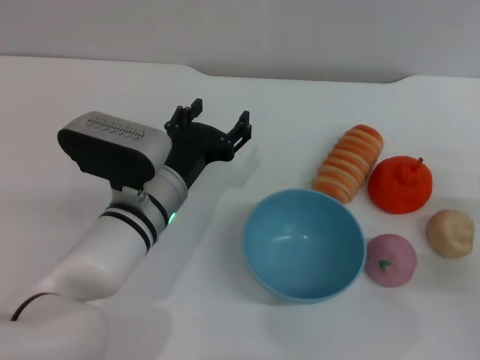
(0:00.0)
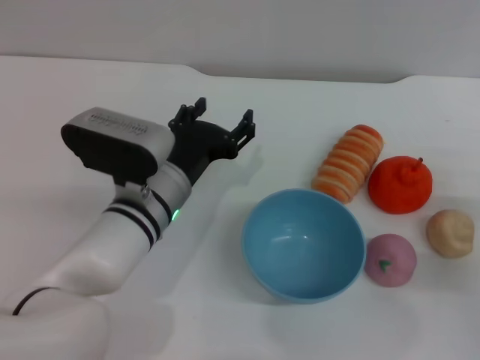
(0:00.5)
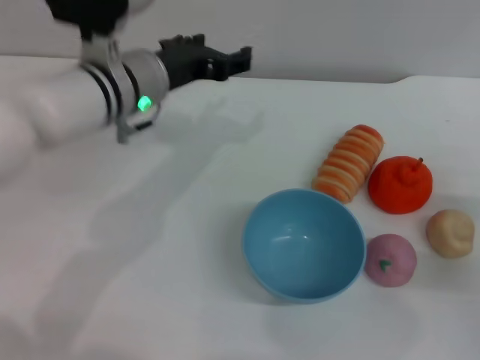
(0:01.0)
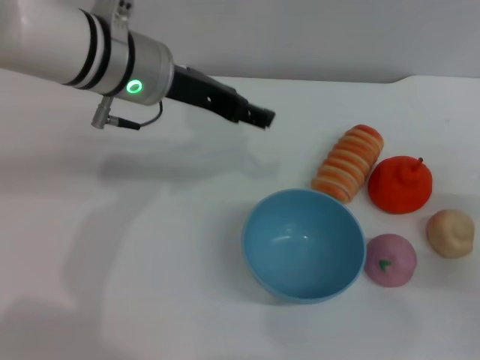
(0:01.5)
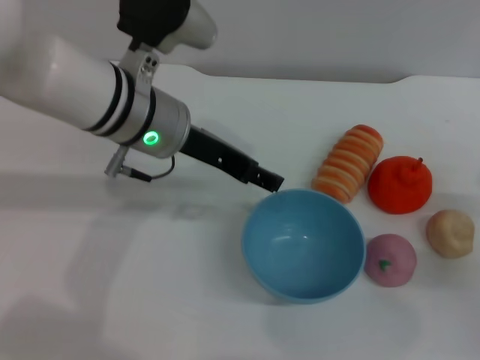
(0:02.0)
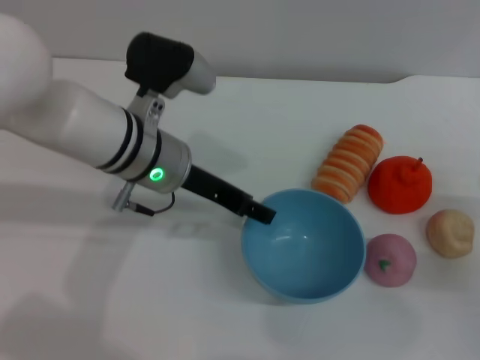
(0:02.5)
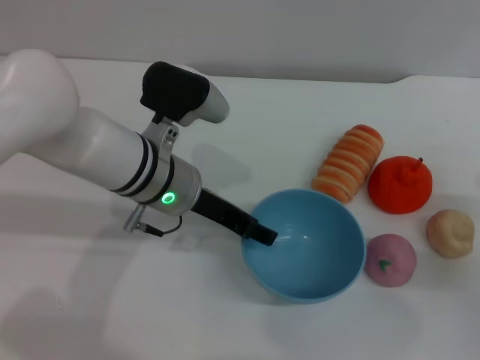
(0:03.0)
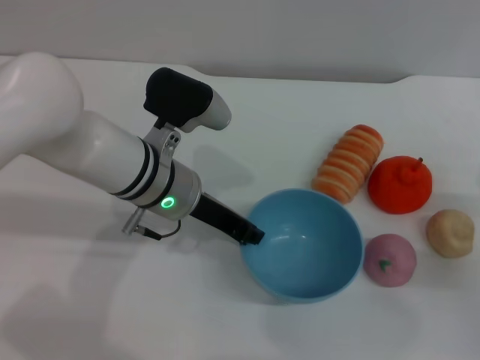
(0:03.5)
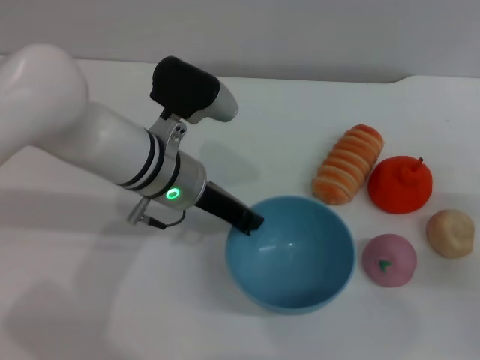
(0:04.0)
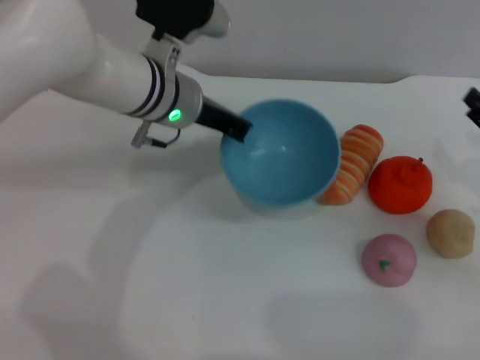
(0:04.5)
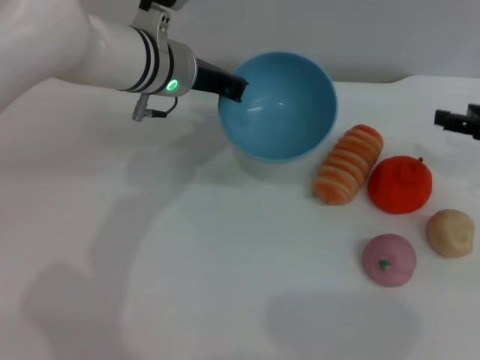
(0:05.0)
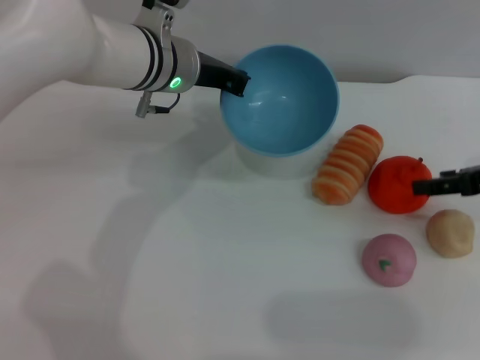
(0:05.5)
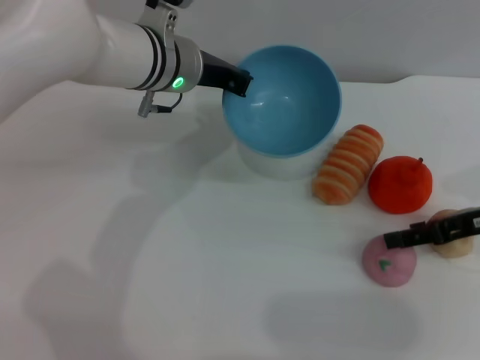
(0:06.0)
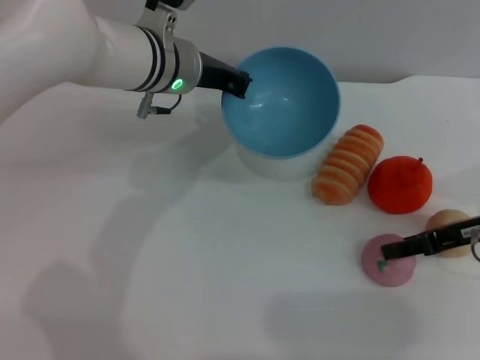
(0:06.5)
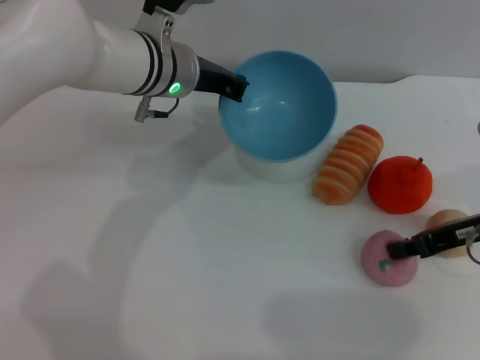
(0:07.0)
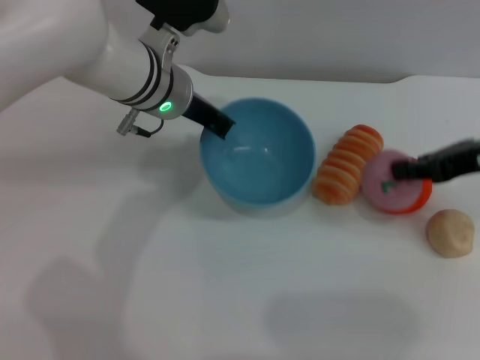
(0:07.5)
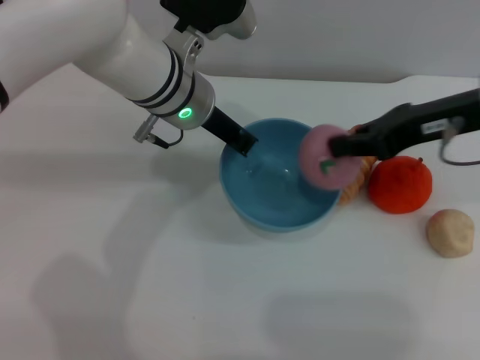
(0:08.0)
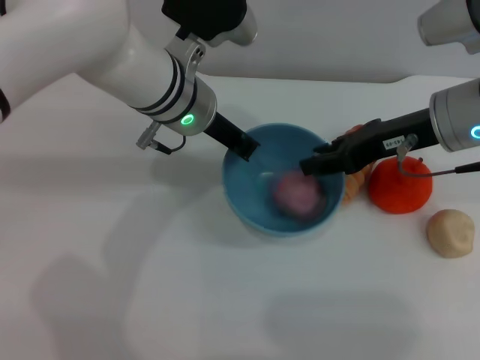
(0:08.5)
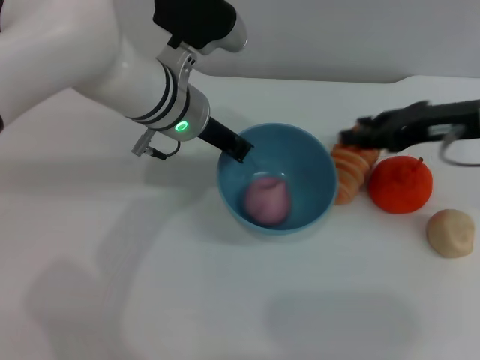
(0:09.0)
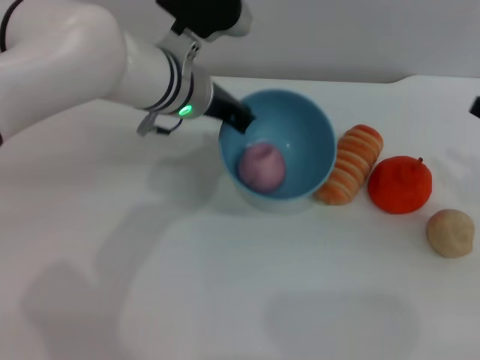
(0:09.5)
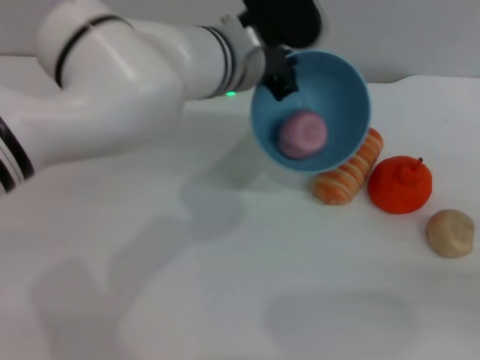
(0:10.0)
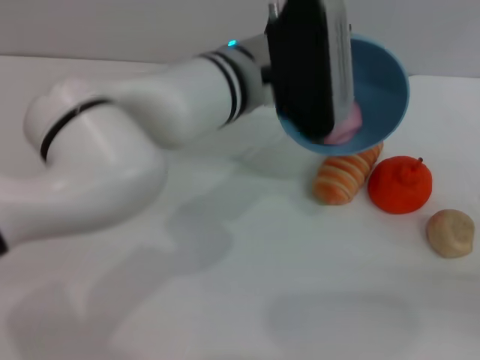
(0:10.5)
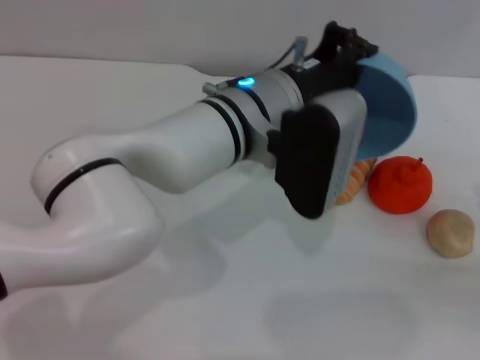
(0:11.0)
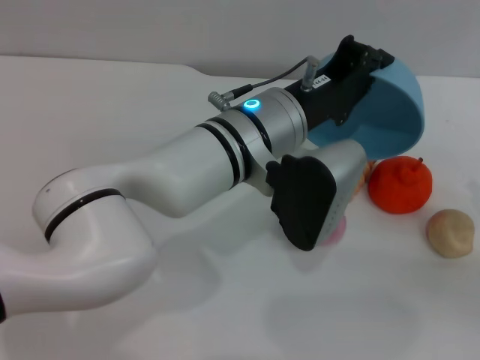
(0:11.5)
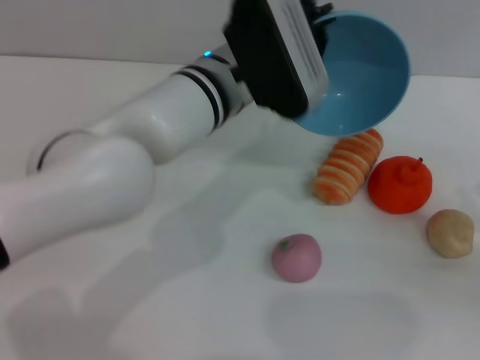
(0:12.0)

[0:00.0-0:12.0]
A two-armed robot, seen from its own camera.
Task of the whole recording: put the peach into the blue bowl and pour it out repeatedly.
Step, 0:00.0 to 0:04.5: Pick up the bowl with the left gripper.
Step, 0:05.0 to 0:07.5: Pick up the peach with the right gripper.
Step, 0:08.0 to 0:09.0: Place the peach into the bowl.
0:00.0 to 0:02.0: The left gripper shifts roughly 15 cm upward and forward.
0:02.0 to 0:04.0: The left gripper travels downward by approximately 5 cm, and closes.
0:04.0 to 0:06.0: The left gripper shifts about 10 cm forward. The right gripper shifts some 10 cm upward and forward.
0:06.0 to 0:08.0: The right gripper moves upward and to the left, roughly 10 cm, and closes.
0:08.0 to 0:10.0: The right gripper moves to the right, downward and backward, some 25 cm, and opens up.

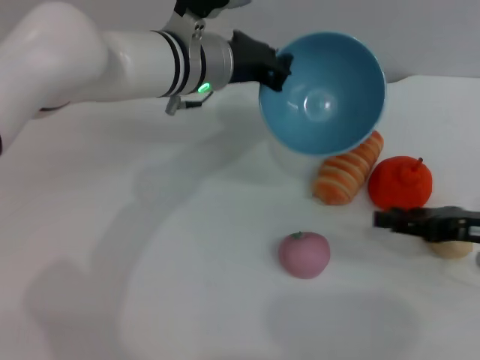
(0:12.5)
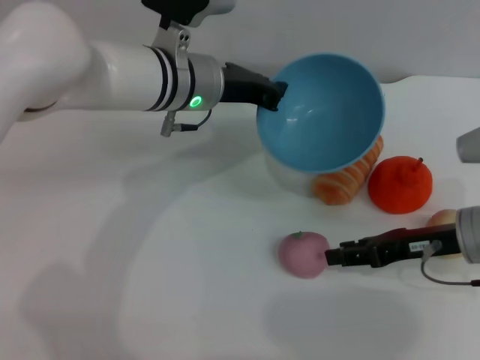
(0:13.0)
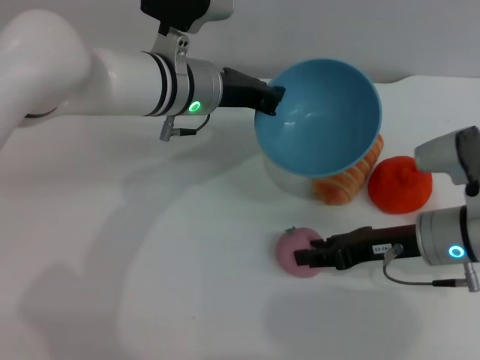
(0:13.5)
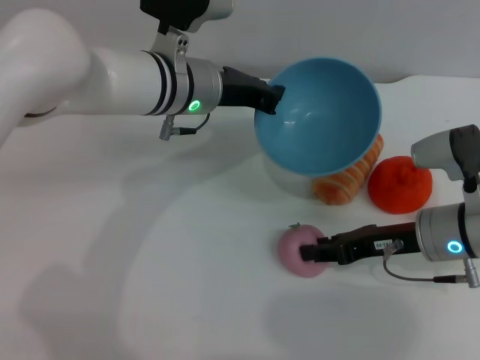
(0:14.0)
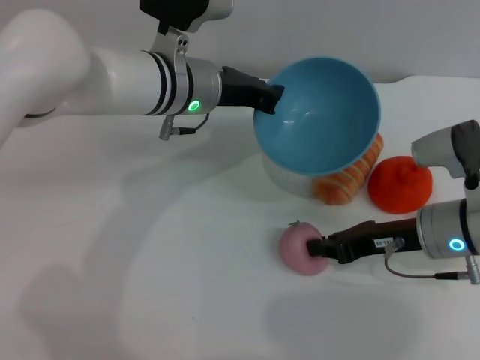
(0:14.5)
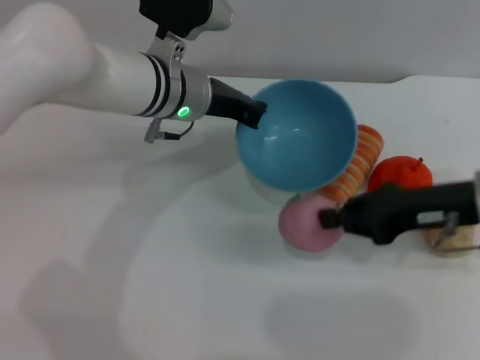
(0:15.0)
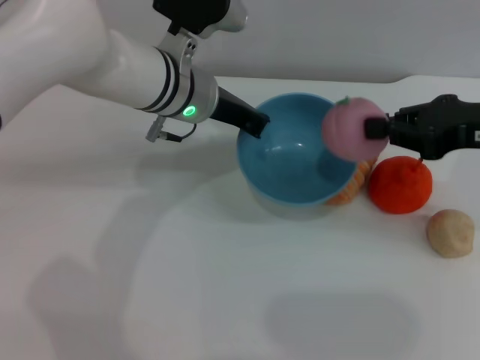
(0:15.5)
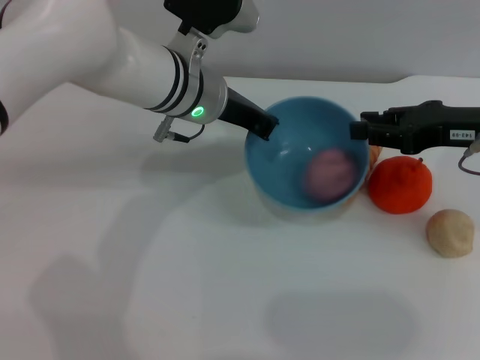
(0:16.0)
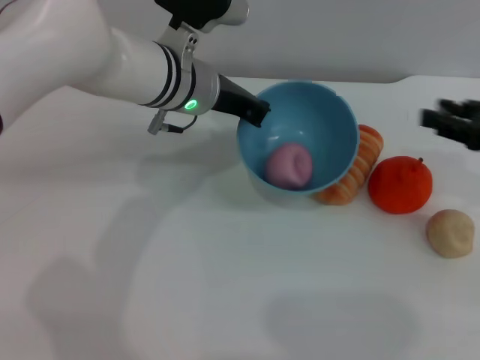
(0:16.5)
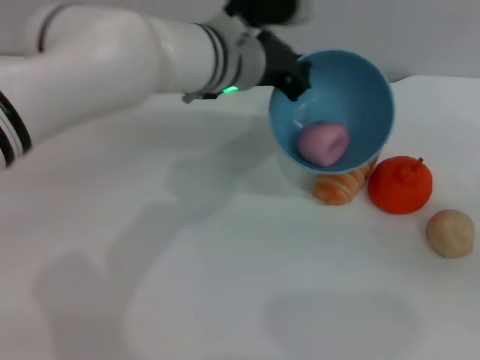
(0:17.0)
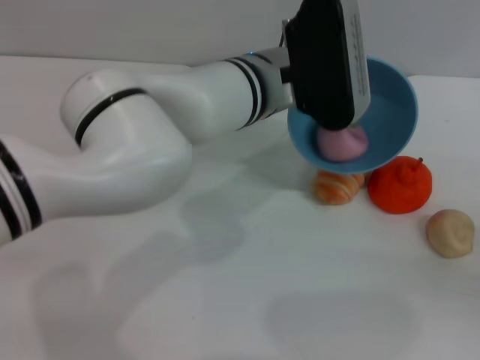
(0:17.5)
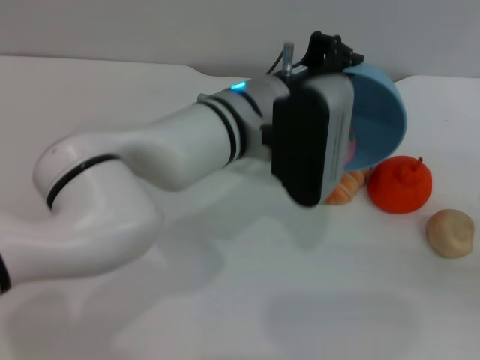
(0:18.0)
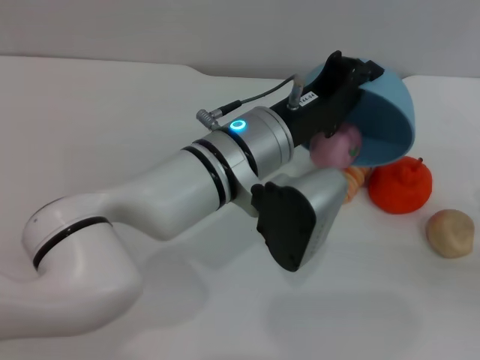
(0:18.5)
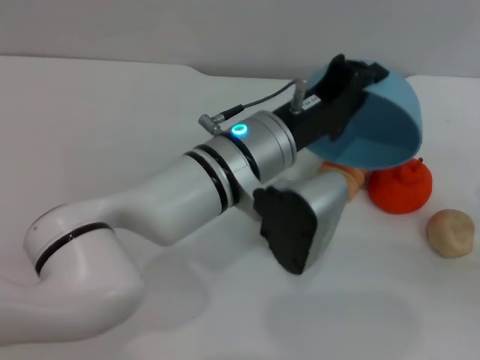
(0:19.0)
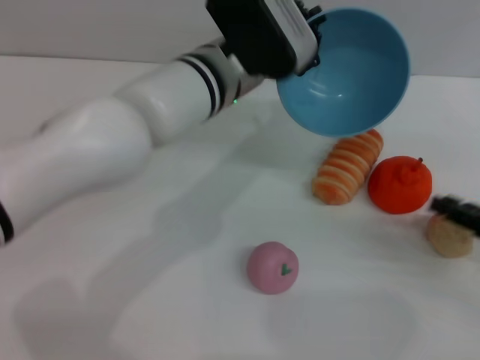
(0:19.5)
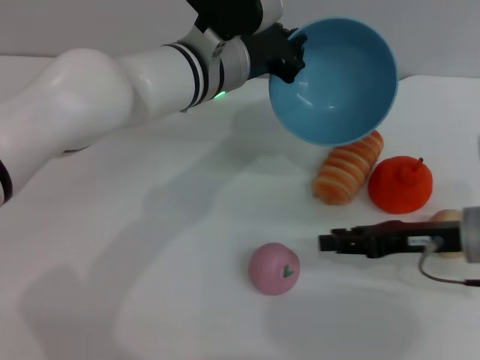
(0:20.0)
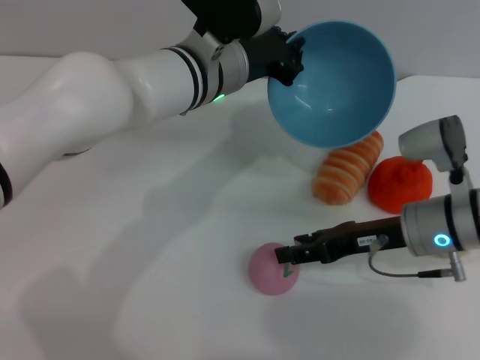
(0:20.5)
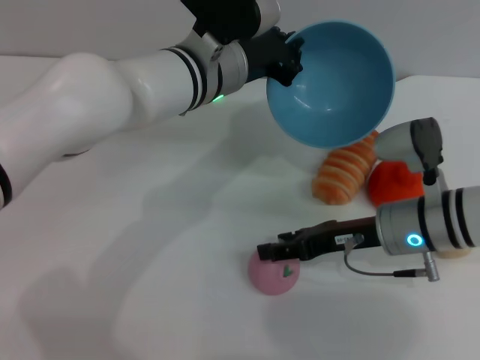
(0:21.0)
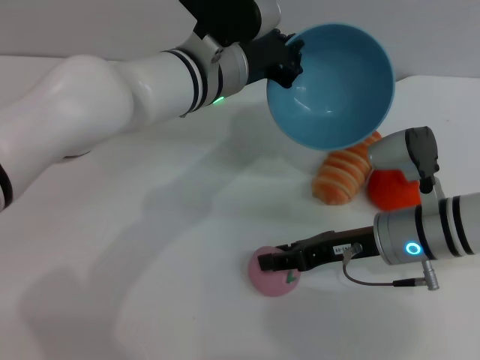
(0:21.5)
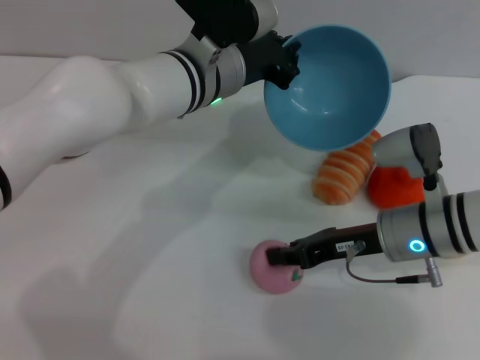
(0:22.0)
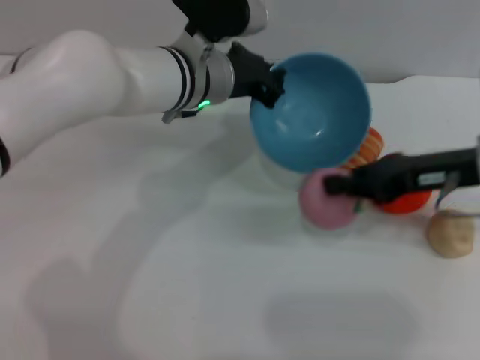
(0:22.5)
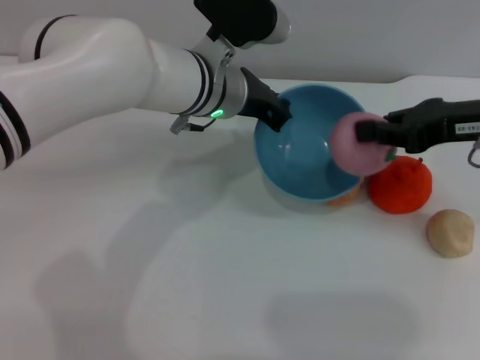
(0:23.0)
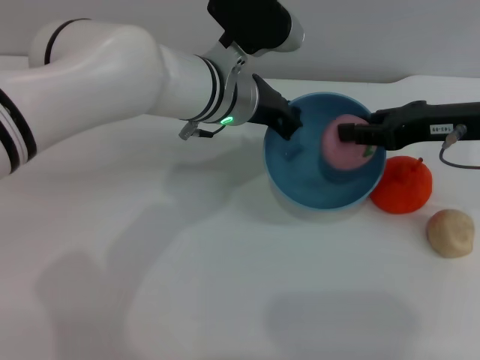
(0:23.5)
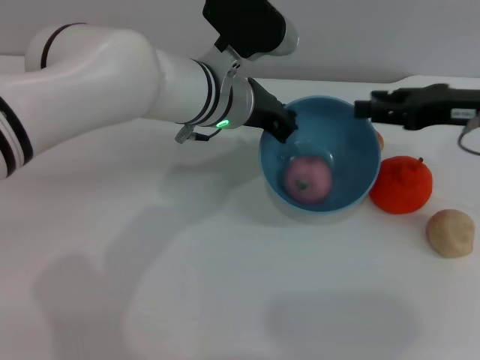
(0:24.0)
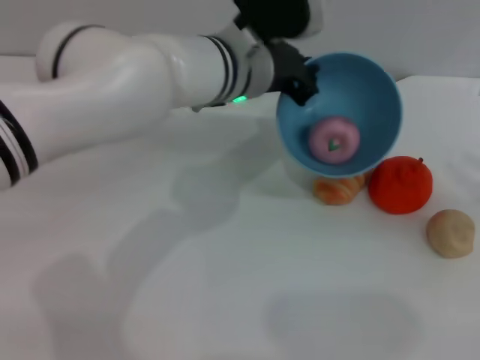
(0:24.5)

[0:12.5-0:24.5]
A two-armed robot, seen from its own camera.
Task of the whole recording: put the peach into the blue bowl and pour it out repeatedly.
Step, 0:13.0 to 0:15.0: Pick up the peach with the right gripper.
Step, 0:15.5 to 0:16.5: Place the peach into the bowl.
Step, 0:17.0 to 0:19.5: Pour the peach out of bowl.
Step, 0:20.0 to 0:22.0: Pick up the peach with the right gripper.
Step, 0:22.5 to 0:24.0: Place the peach into the bowl.
0:12.5 to 0:14.5: The right gripper is displaced to the left by roughly 10 cm, and closes.
0:14.5 to 0:16.5: The right gripper goes about 15 cm to the right and upward, and opens.
0:16.5 to 0:18.5: The right gripper shifts some 15 cm backward, downward and to the right. Meanwhile the left gripper heads backward and to the right, covering about 10 cm.
0:18.5 to 0:20.5: The right gripper shifts roughly 20 cm to the left and forward; the left gripper heads forward, covering approximately 10 cm.
0:20.5 to 0:22.5: The right gripper moves upward, some 10 cm, and closes.
0:22.5 to 0:24.5: The right gripper travels to the right by approximately 15 cm, and opens.

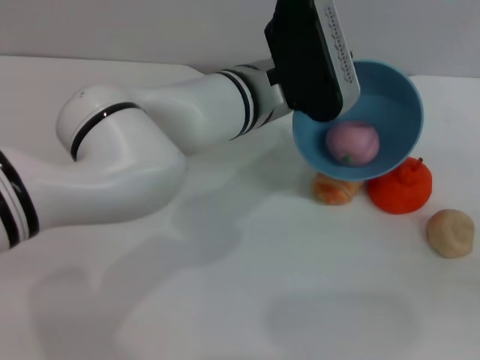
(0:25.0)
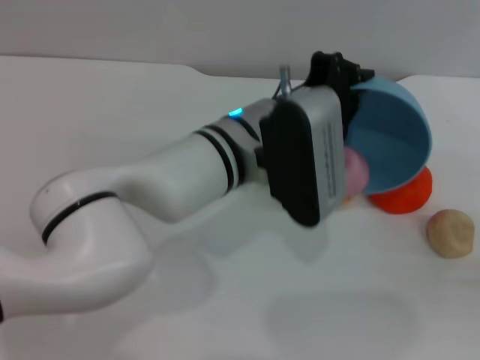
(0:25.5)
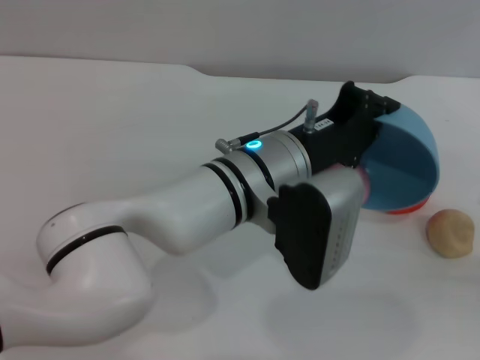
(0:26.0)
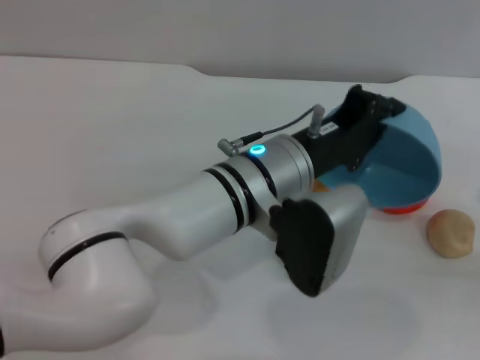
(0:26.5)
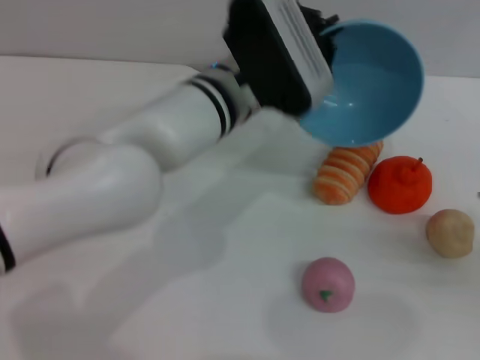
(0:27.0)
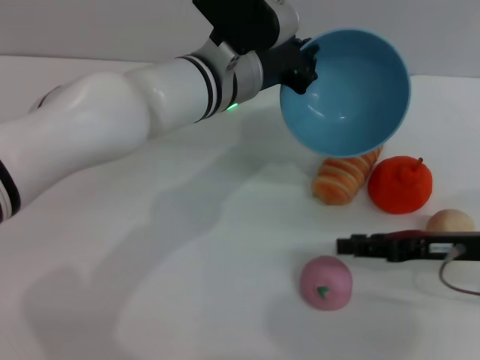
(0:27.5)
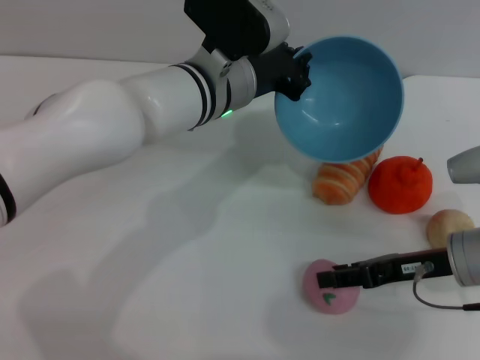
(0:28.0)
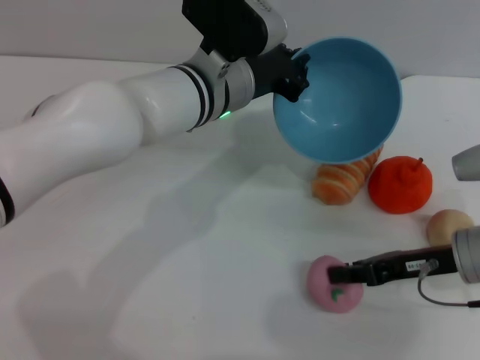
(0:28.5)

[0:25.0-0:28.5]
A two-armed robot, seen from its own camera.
Task of the whole recording: put the peach into the blue bowl and pour it out repeatedly.
Step, 0:25.0 to 0:27.0: Pour the peach out of bowl.
0:25.0 to 0:27.0: The left gripper reaches about 10 cm backward, then returns.
0:27.0 to 0:28.5: The right gripper is displaced to the left and forward by some 15 cm.
